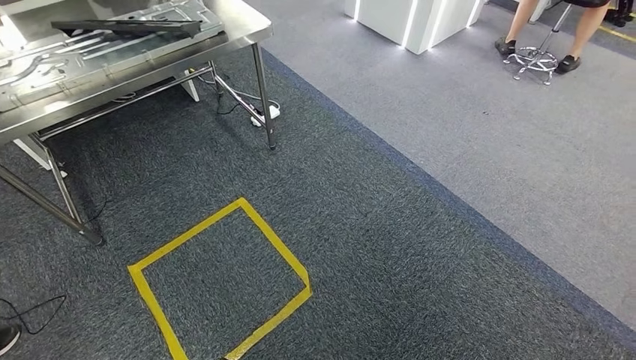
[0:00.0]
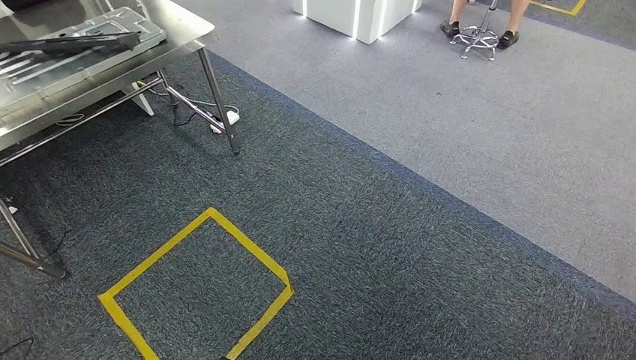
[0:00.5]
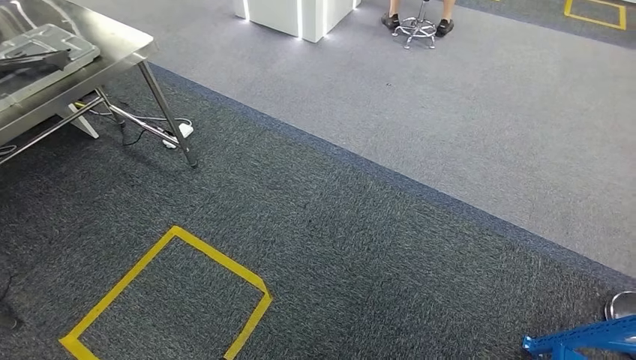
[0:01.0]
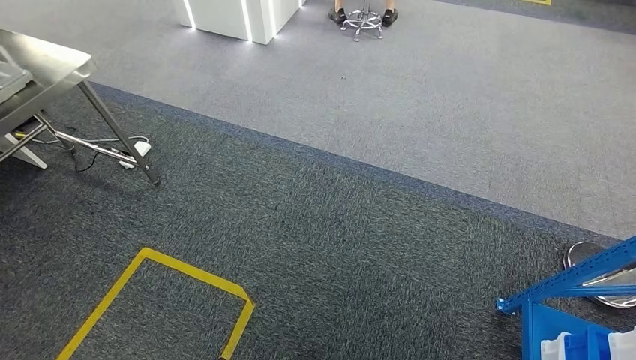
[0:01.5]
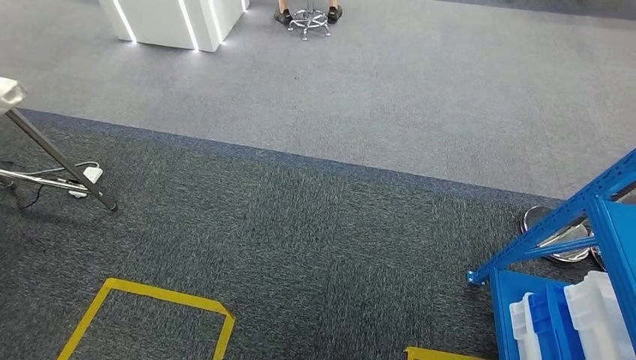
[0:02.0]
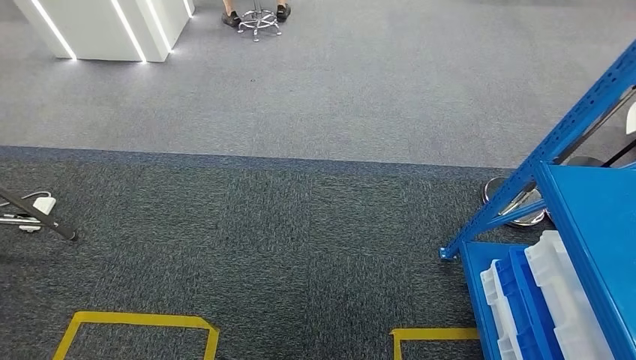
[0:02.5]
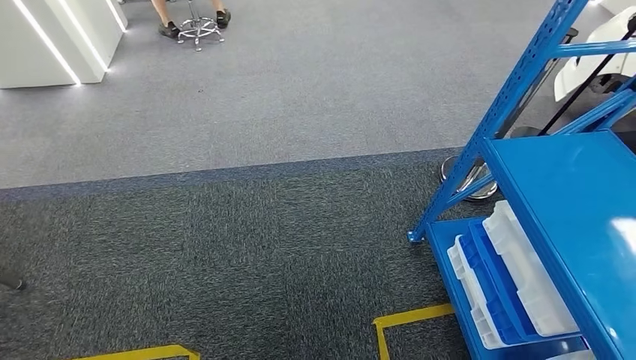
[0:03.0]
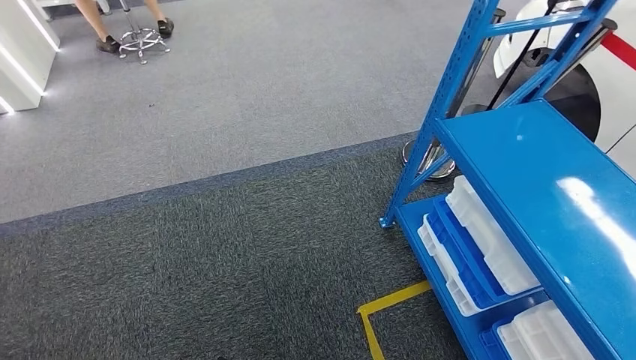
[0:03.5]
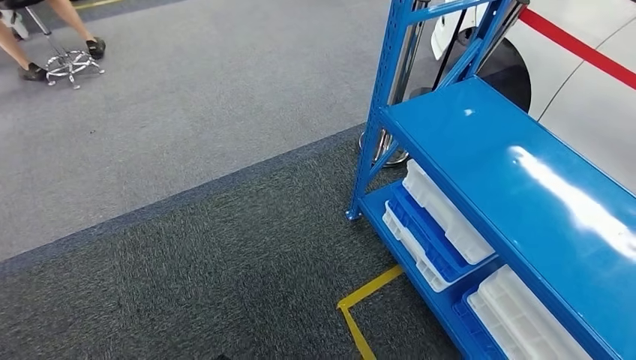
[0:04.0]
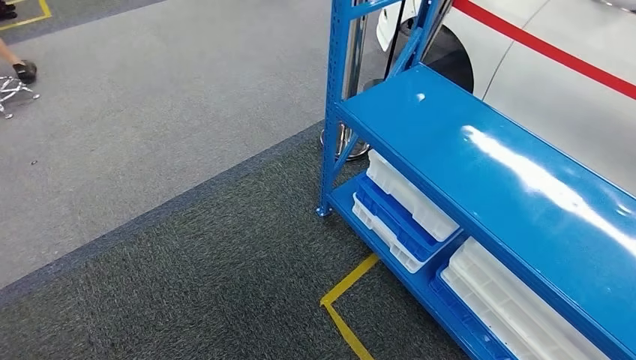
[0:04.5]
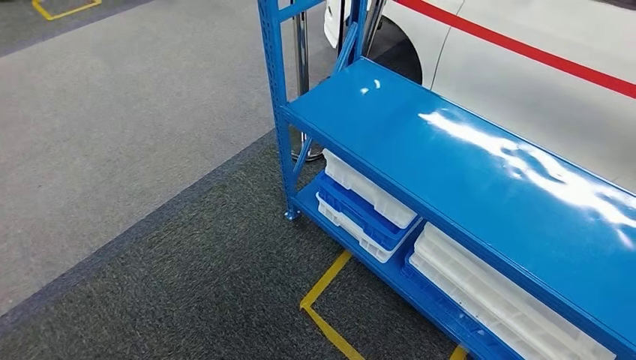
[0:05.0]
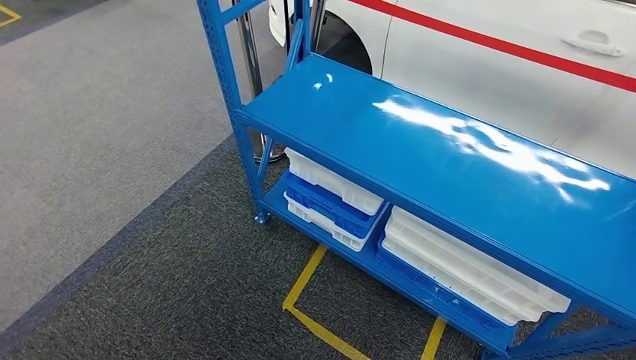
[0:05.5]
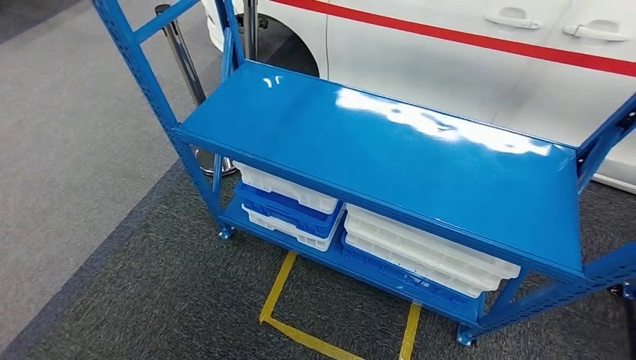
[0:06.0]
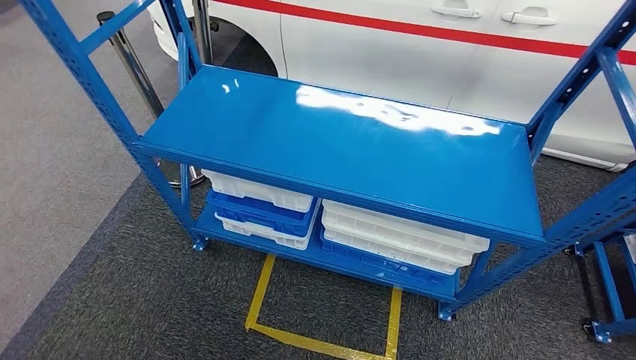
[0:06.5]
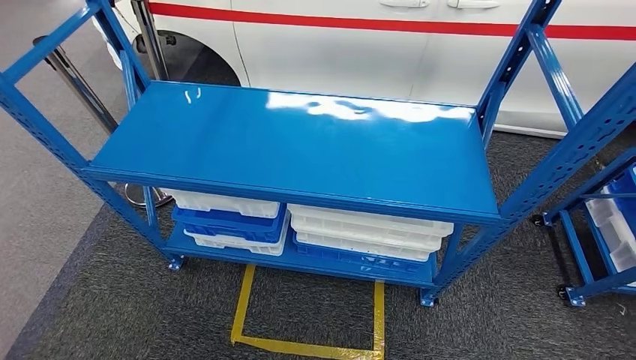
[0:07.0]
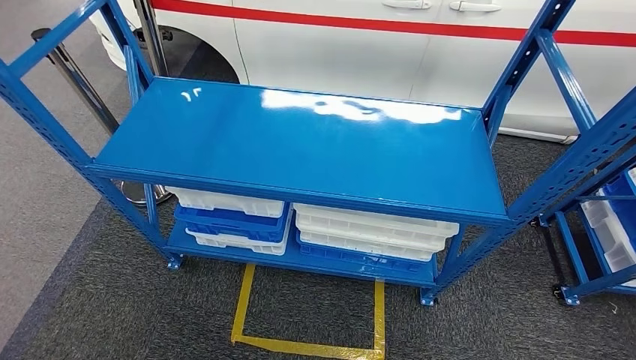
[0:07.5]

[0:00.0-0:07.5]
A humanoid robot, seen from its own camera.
Step, 0:00.0 to 0:07.5: Return to the initial position at the shelf.
